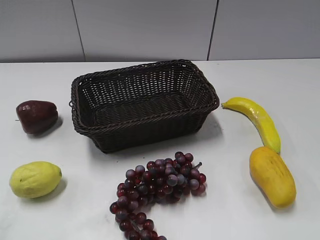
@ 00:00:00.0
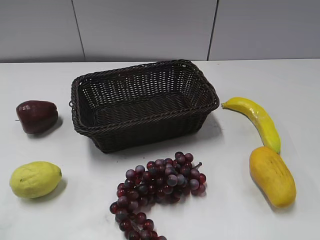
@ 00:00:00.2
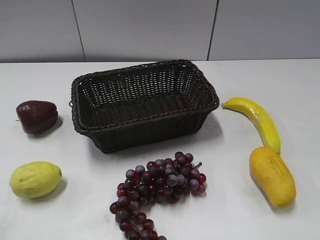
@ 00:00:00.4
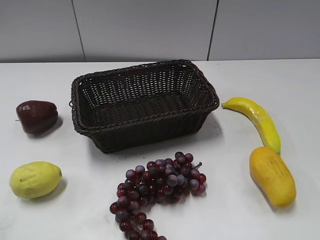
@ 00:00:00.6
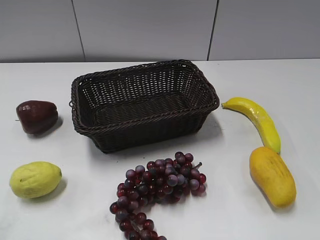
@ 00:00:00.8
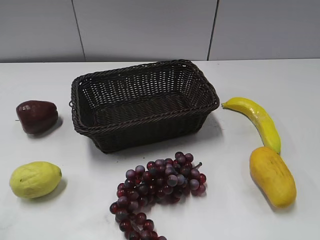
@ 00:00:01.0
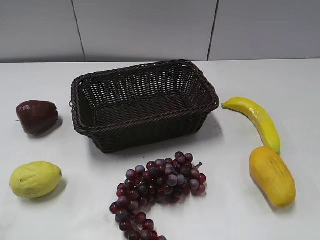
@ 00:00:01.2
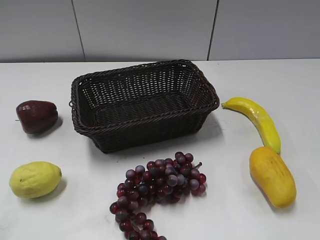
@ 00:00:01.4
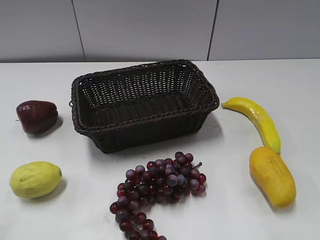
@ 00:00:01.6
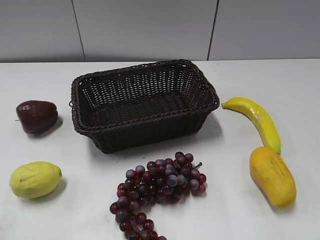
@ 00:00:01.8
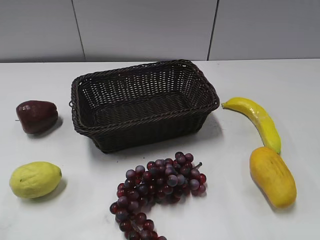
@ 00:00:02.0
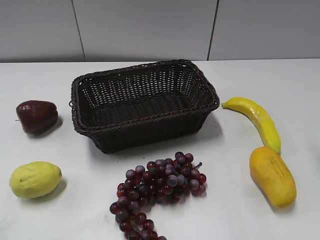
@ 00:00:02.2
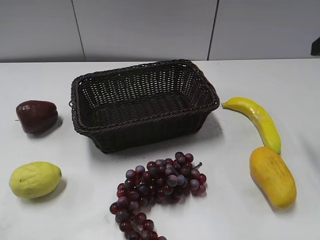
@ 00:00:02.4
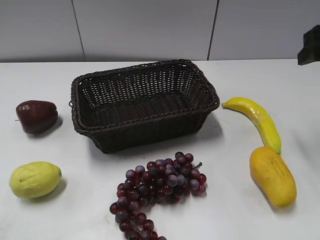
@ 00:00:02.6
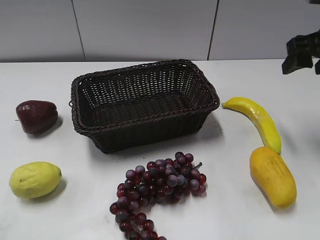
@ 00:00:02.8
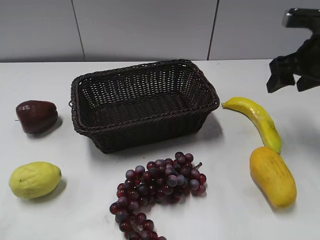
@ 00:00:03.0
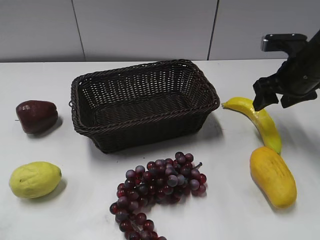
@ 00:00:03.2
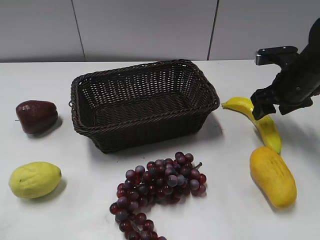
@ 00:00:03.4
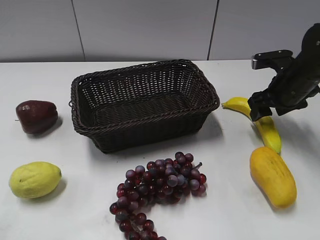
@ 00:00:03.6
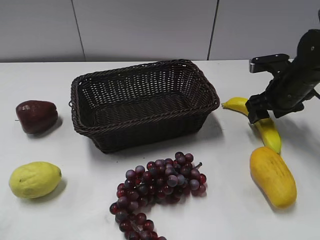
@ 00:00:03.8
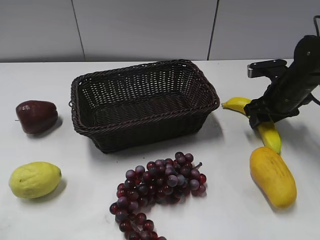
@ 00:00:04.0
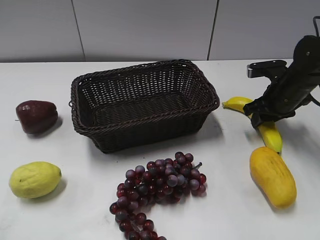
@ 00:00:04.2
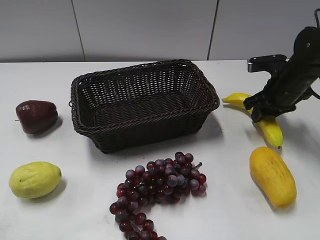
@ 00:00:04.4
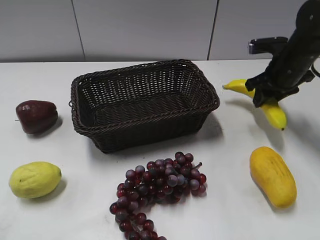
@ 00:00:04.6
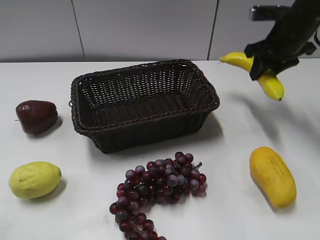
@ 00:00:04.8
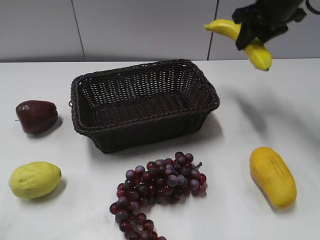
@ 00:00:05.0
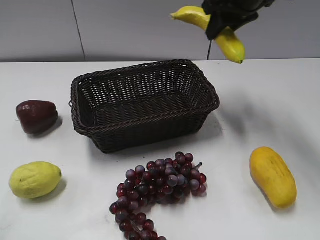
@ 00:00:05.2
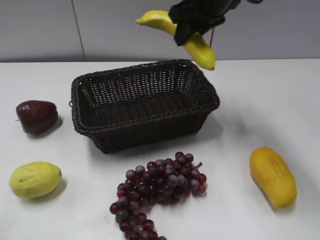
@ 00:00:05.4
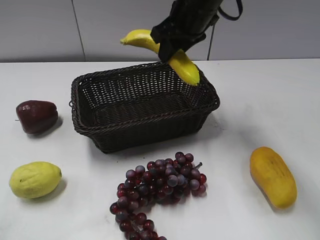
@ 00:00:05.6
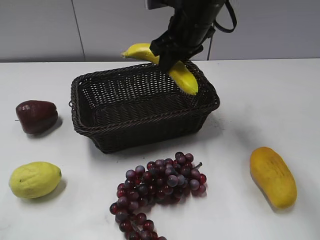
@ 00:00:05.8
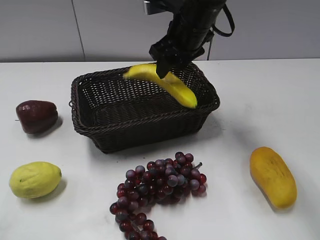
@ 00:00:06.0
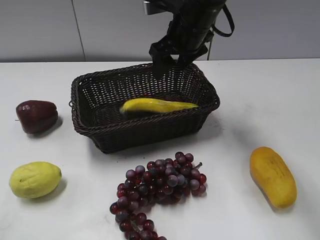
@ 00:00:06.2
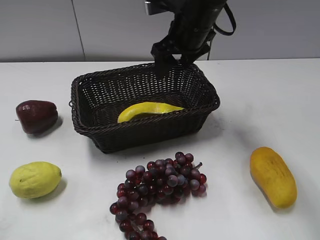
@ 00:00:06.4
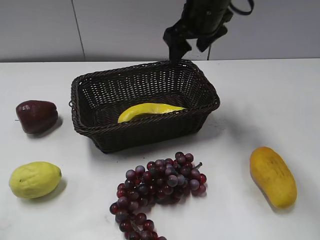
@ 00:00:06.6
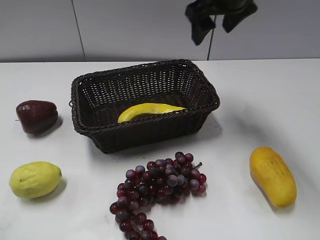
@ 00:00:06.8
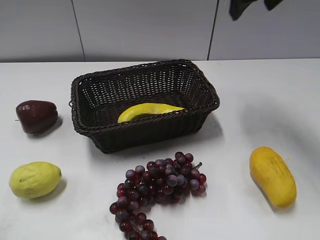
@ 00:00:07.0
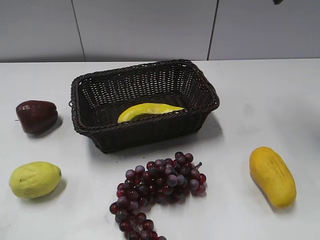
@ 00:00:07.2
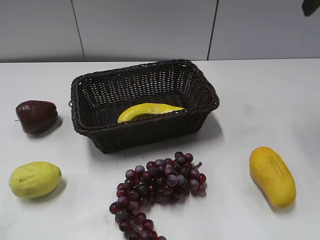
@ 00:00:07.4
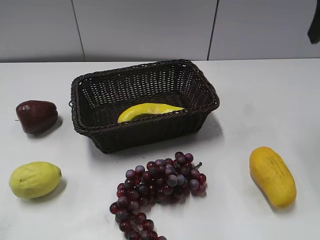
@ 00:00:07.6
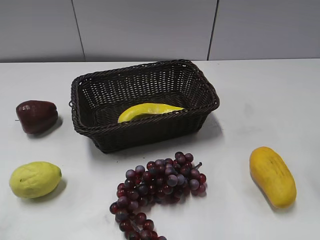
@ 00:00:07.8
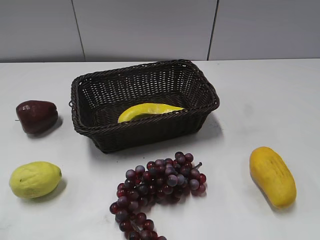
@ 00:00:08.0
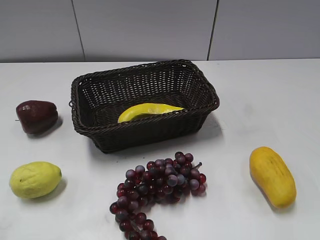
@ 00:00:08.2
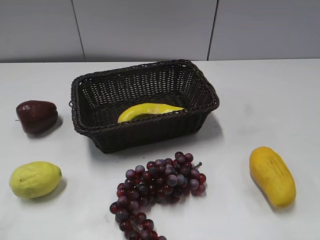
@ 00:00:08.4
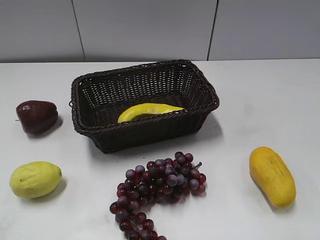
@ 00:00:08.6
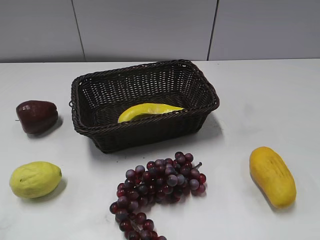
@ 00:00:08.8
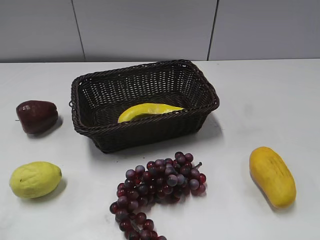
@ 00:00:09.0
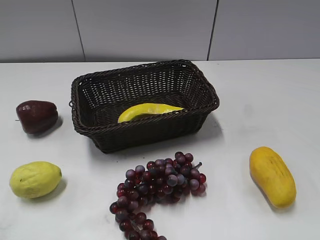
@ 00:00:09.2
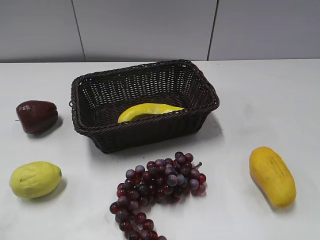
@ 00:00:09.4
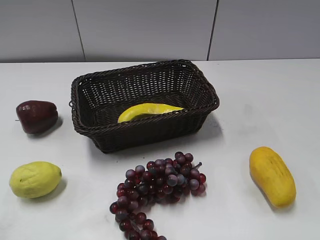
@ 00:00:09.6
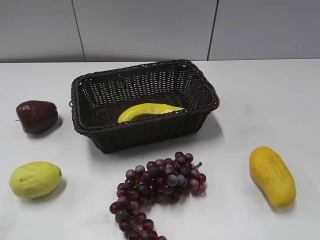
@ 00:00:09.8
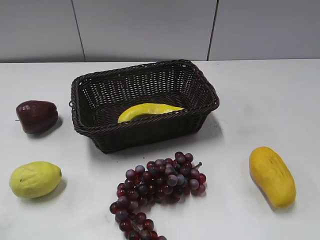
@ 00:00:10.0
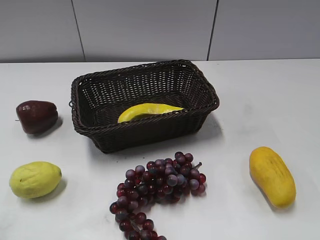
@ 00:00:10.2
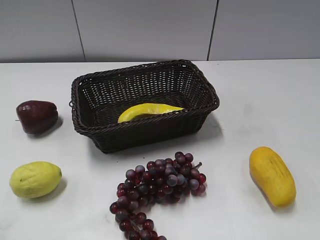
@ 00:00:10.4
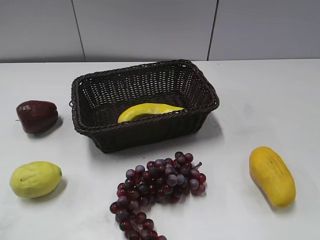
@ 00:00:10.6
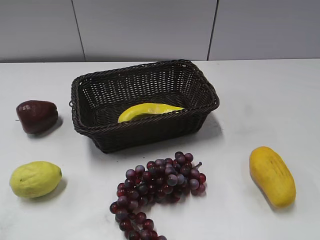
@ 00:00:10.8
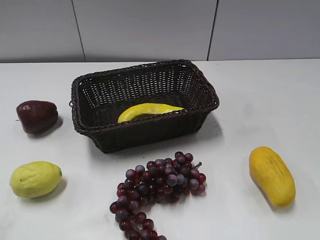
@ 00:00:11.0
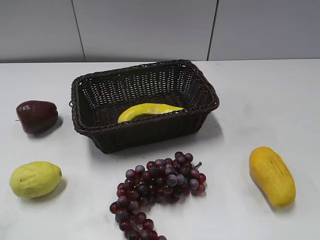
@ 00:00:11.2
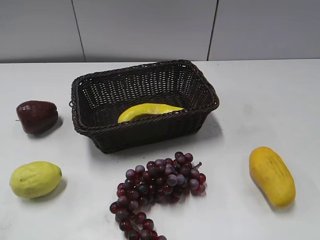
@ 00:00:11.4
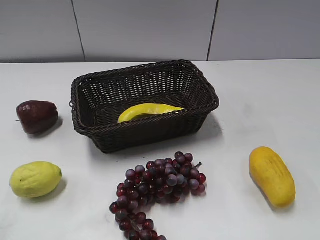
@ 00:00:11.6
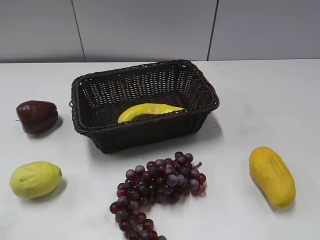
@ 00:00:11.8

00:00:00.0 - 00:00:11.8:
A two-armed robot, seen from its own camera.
Step, 00:00:02.4 - 00:00:04.6: Grasp the banana with right gripper.
Step, 00:00:04.8 - 00:00:06.4: Place the banana in the basket with right gripper.
00:00:01.4 - 00:00:03.0: The right gripper moves forward, roughly 35 cm.
00:00:03.0 - 00:00:04.4: The right gripper travels downward by approximately 10 cm, and closes.
00:00:04.4 - 00:00:06.0: The right gripper heads to the left and upward, covering some 25 cm, and opens its fingers.
00:00:06.0 - 00:00:07.4: The right gripper shifts about 25 cm to the right and upward, and opens up.
00:00:10.4 - 00:00:11.8: Neither gripper changes place.

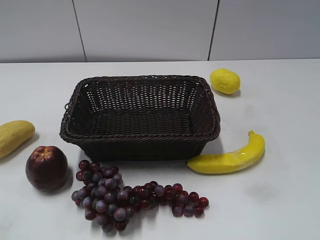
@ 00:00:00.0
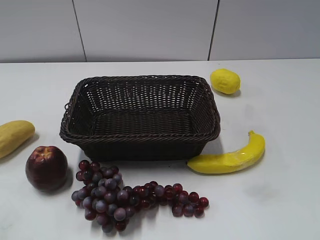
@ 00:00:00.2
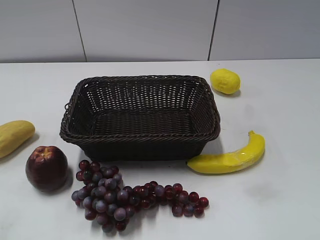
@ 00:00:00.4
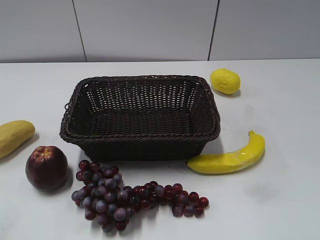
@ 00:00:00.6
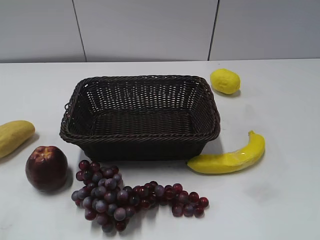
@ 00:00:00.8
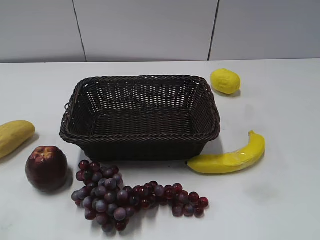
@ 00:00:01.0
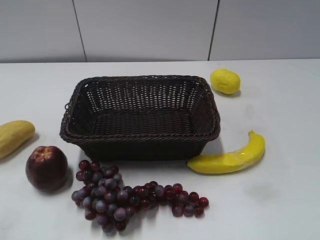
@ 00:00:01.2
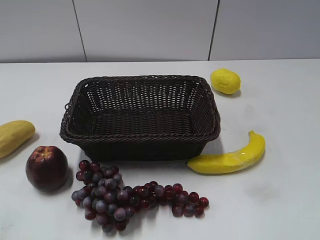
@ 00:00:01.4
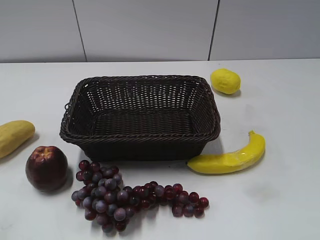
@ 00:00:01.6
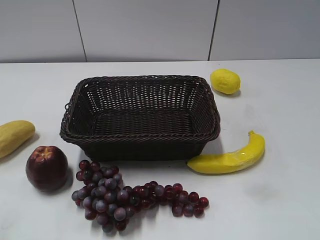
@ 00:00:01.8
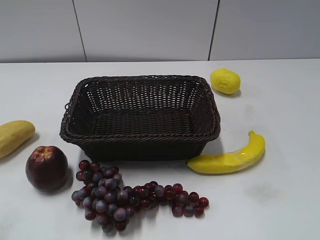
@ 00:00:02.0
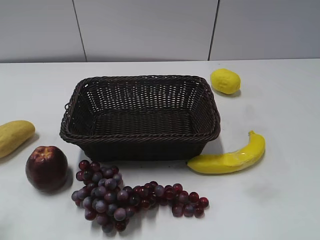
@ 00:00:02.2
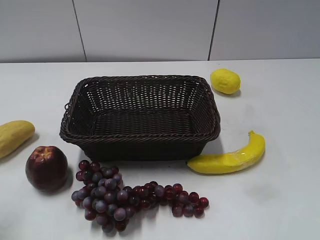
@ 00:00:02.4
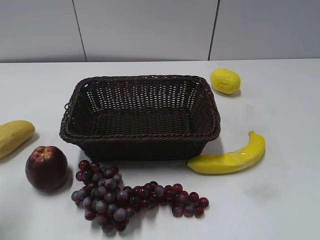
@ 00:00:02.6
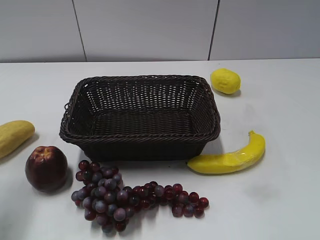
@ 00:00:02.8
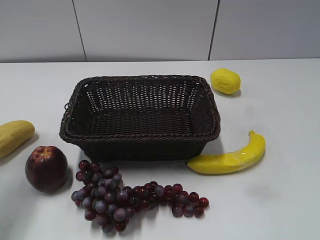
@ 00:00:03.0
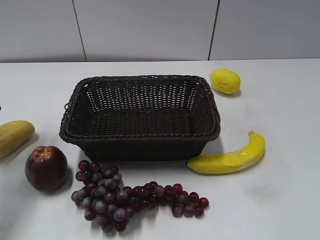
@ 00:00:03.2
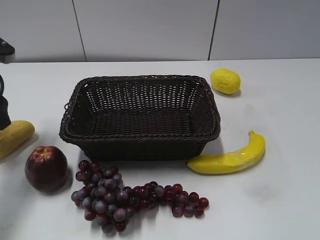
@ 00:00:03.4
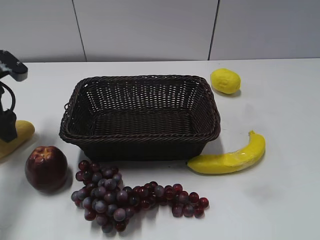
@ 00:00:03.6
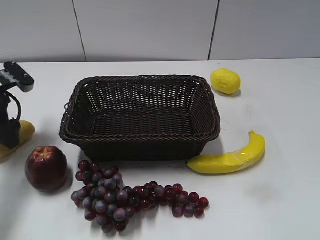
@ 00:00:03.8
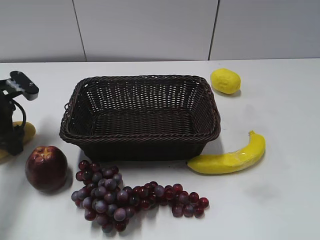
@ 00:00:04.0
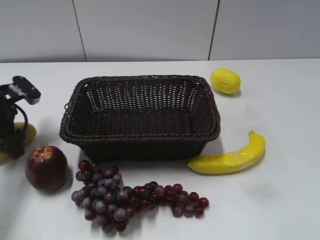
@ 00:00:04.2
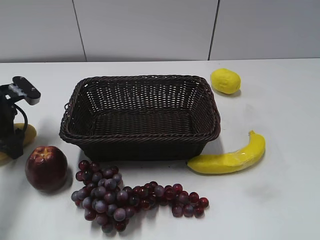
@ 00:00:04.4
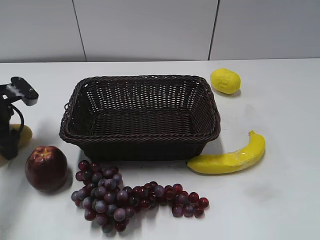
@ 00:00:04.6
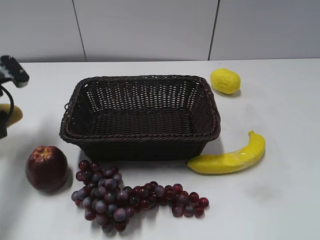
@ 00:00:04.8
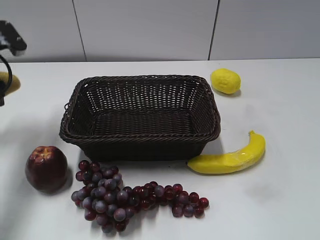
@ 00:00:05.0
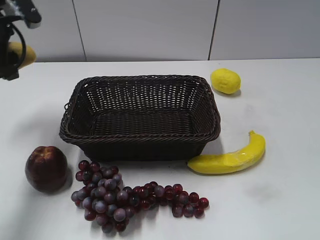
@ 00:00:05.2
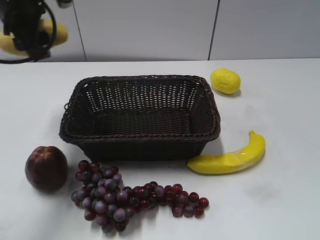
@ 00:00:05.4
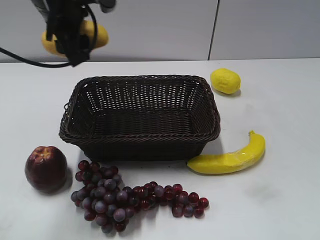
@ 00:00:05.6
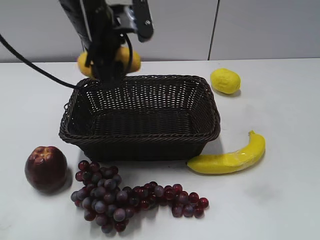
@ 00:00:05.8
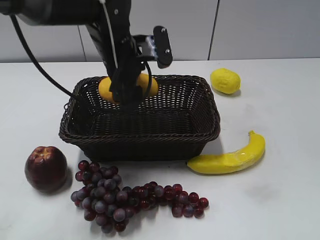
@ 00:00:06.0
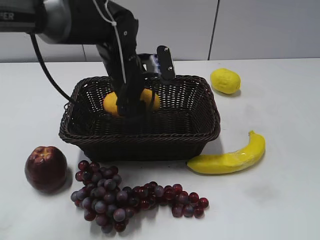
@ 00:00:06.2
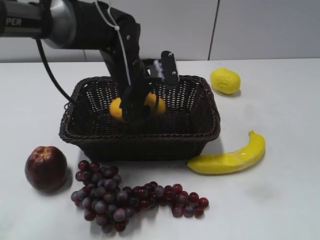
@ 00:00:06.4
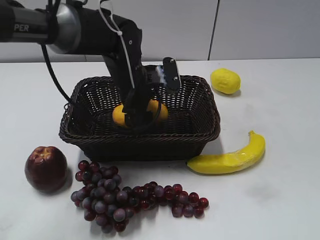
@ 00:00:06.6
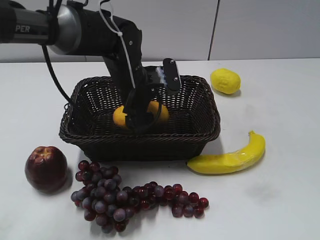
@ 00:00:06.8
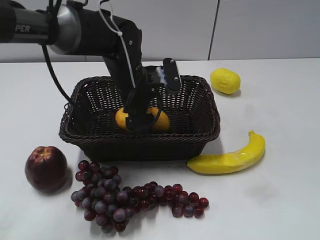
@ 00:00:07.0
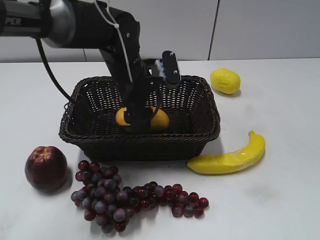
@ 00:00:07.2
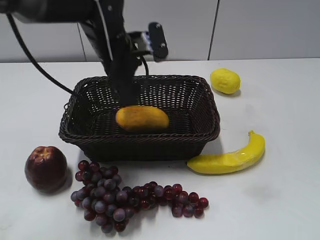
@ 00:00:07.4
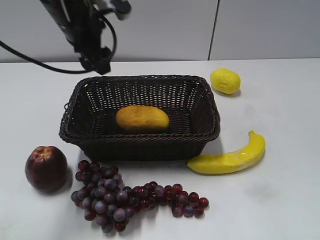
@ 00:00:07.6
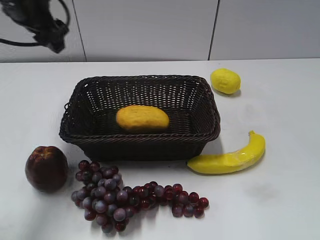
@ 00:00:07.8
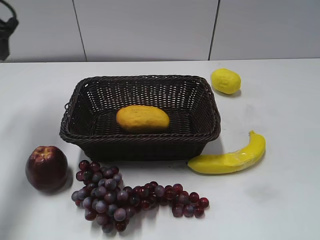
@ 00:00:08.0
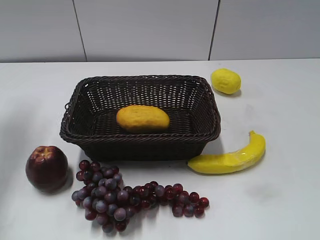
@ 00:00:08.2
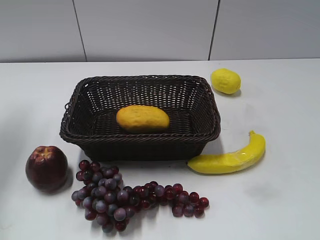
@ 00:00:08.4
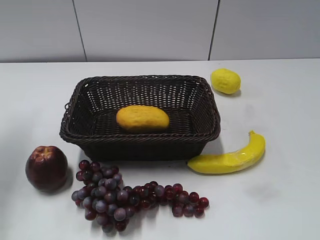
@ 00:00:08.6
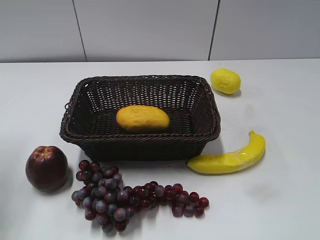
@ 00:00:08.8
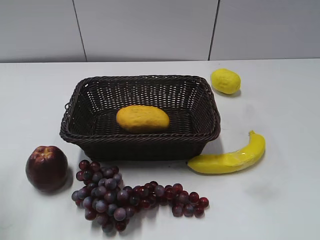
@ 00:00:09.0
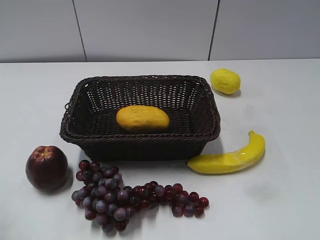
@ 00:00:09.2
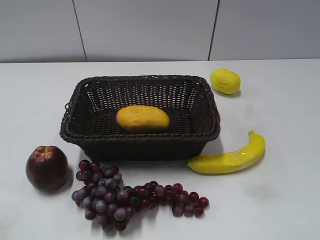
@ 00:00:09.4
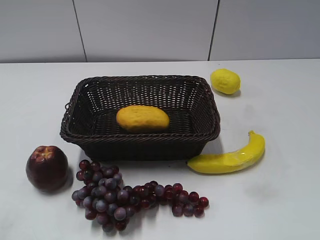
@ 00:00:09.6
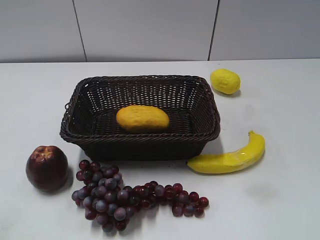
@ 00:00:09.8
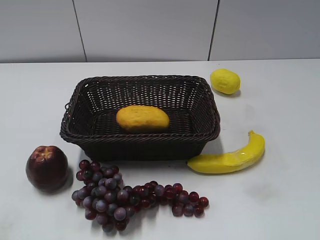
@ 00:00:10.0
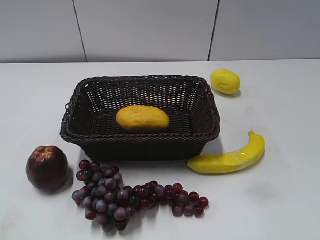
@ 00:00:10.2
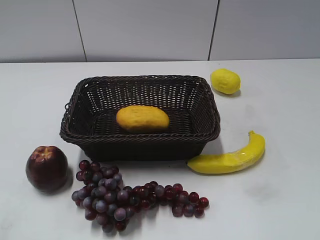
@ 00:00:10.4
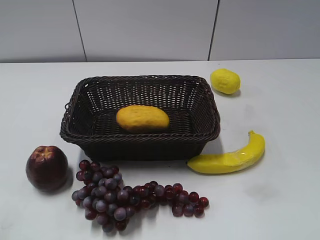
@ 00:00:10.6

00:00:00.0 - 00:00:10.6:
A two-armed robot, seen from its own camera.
Step, 00:00:03.2 - 00:00:04.0: Grasp the mango with left gripper.
Step, 00:00:04.4 - 00:00:07.0: Place the mango in the basket with left gripper.
00:00:01.6 - 00:00:03.0: The left gripper is displaced forward by roughly 25 cm, and opens its fingers.
00:00:03.0 - 00:00:04.6: The left gripper moves downward and forward, some 15 cm, and closes its fingers.
00:00:04.6 - 00:00:06.0: The left gripper is displaced to the right by roughly 25 cm.
00:00:06.0 - 00:00:07.6: The left gripper is displaced to the left and upward by roughly 10 cm, and opens up.
00:00:07.6 - 00:00:09.0: The left gripper goes about 25 cm to the left and backward, and closes up.
